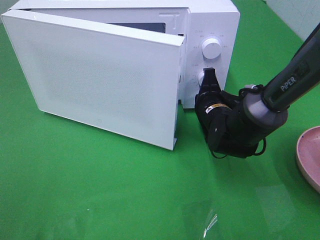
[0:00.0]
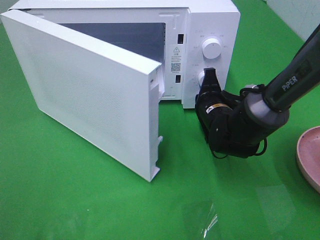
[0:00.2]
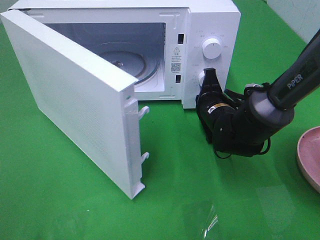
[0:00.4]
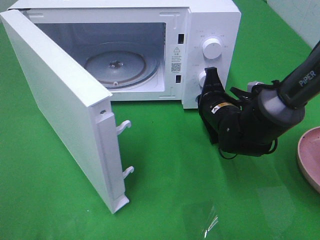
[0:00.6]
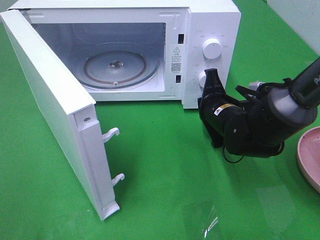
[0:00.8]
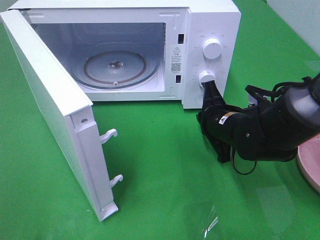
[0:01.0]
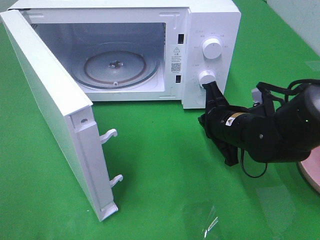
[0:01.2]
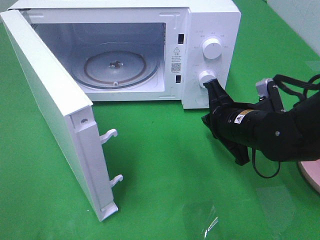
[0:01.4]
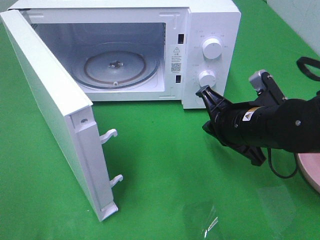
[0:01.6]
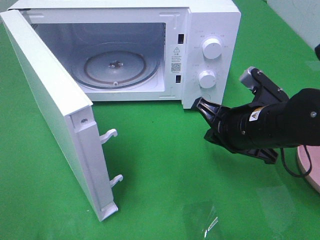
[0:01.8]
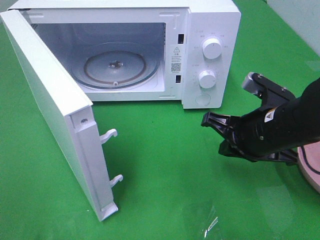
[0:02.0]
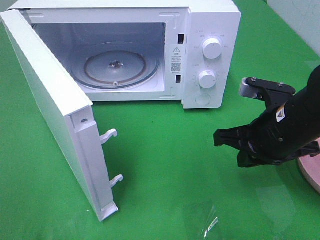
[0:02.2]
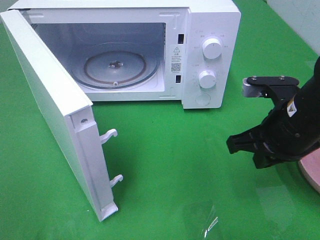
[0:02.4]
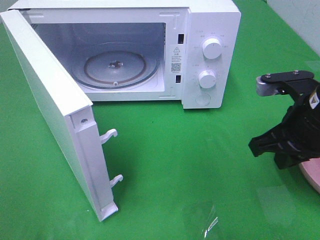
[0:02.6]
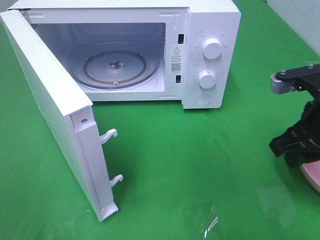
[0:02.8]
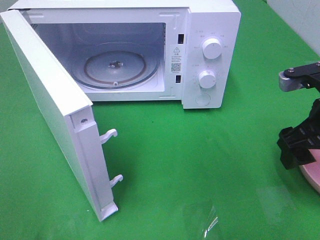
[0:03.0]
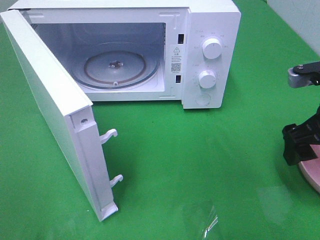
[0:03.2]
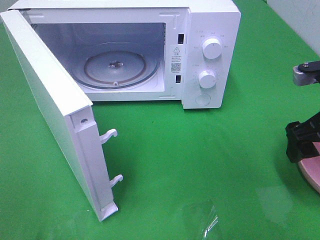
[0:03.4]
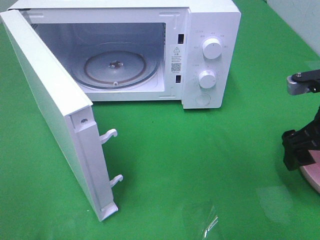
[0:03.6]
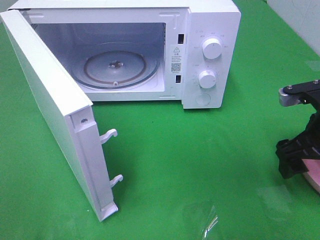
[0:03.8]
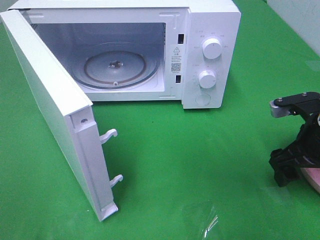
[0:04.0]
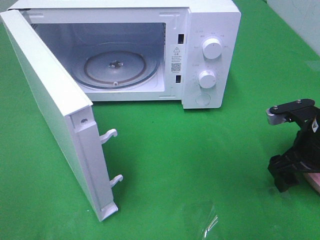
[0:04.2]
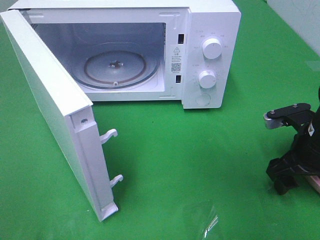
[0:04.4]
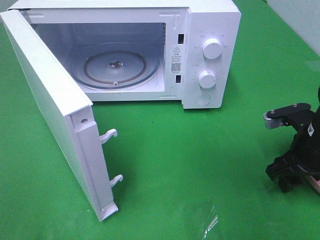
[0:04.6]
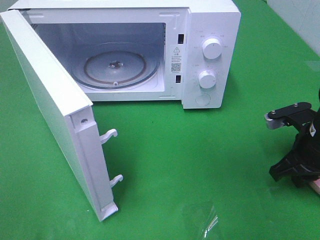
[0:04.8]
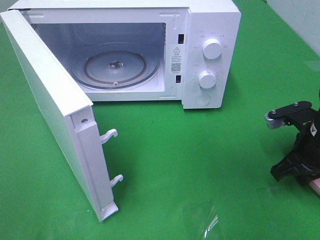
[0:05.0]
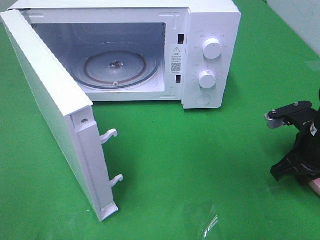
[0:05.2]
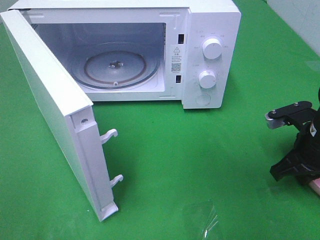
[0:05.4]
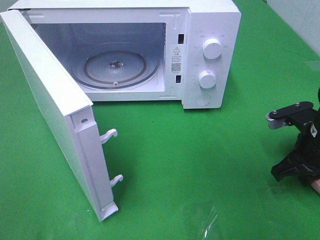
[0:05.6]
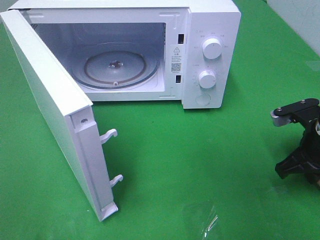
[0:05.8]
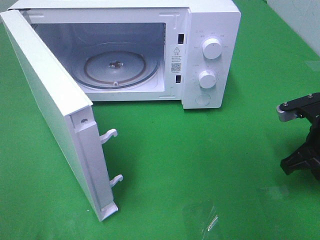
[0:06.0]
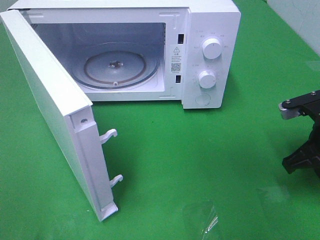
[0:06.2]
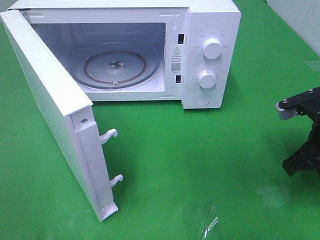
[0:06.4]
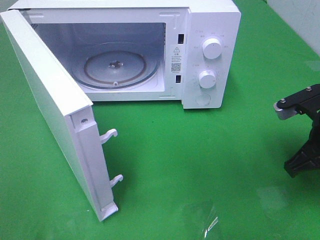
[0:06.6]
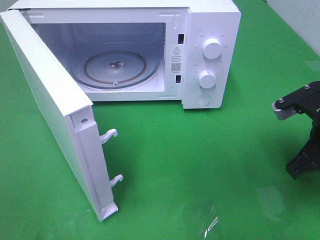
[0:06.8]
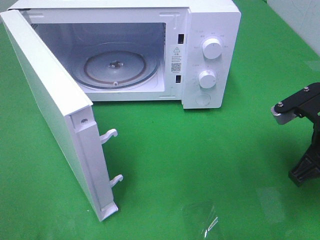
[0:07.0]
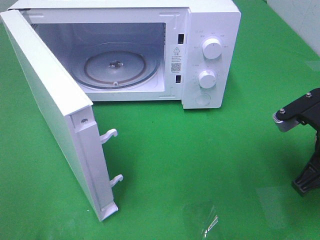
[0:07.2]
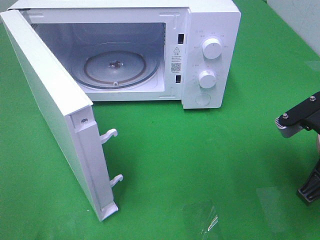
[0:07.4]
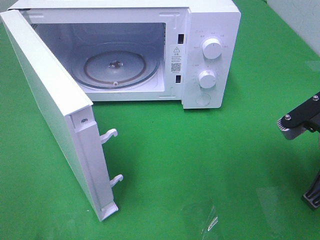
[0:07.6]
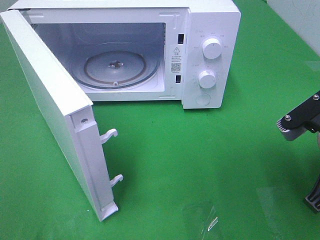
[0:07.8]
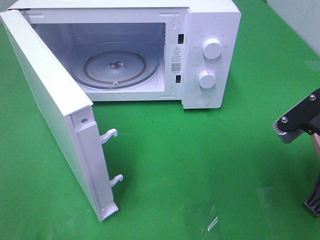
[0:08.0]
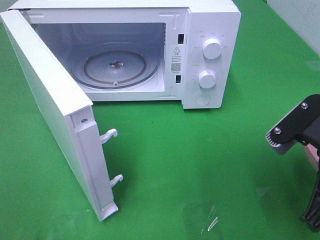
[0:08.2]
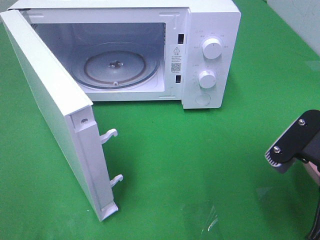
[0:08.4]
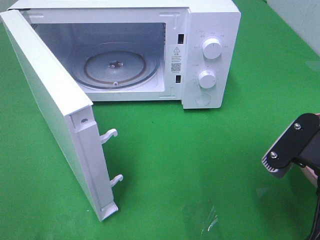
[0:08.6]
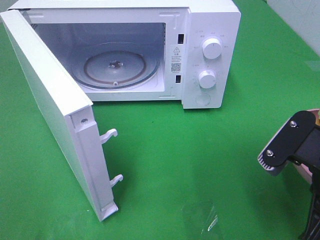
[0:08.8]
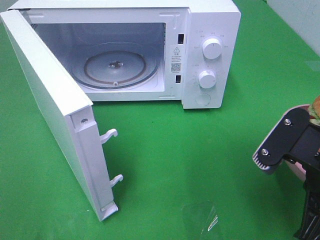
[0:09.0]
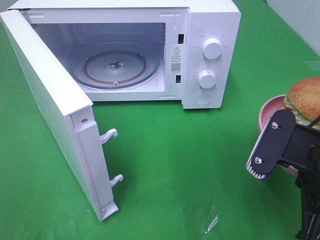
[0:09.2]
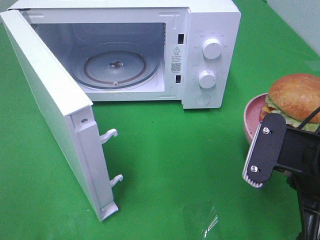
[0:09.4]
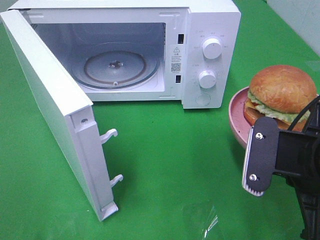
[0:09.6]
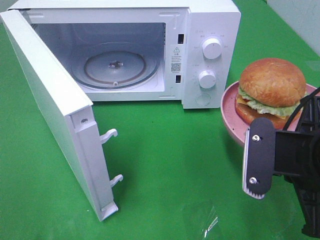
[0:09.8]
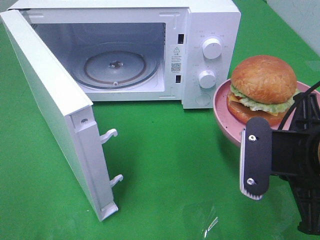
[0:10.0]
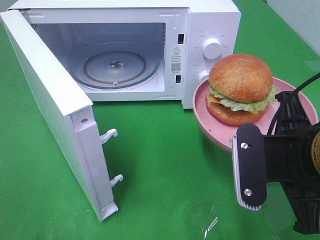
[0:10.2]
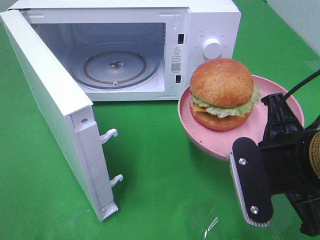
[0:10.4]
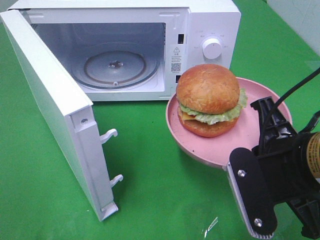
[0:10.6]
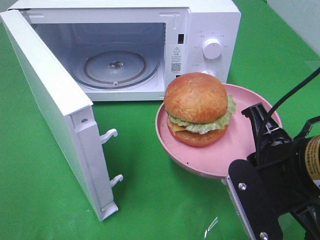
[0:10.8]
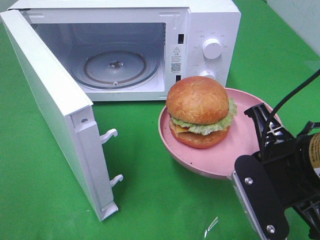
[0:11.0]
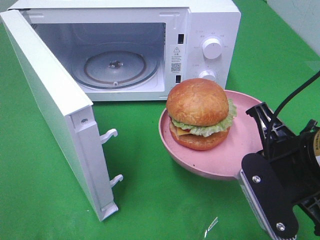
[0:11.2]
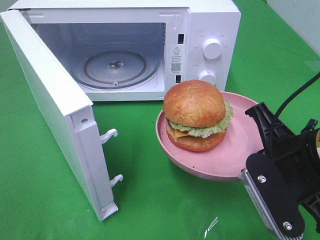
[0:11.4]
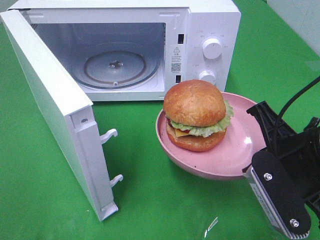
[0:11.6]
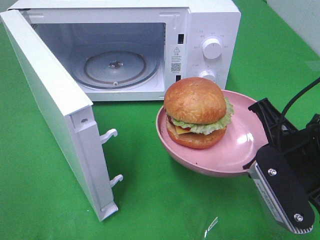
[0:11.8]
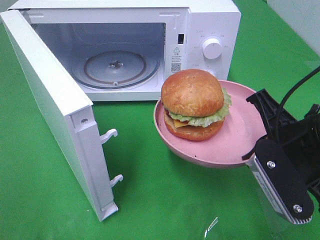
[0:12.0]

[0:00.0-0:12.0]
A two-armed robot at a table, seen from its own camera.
Task of the whole recording: Heat the burger.
Step, 0:01.2 to 0:06.0: Right hand: grab the plate with the hamburger.
0:00.0 to 0:01.6: The right gripper travels backward and upward by roughly 10 cm.
0:01.6 to 0:03.0: The right gripper heads to the right and upward, covering about 10 cm, and opens its fingers.
0:03.0 to 0:04.4: The right gripper shifts about 10 cm downward.
0:04.4 to 0:06.0: The right gripper closes.
0:06.0 to 0:07.6: The right gripper heads backward and upward, covering roughly 10 cm.
0:07.6 to 0:09.0: The right gripper changes place by about 5 cm.
0:10.4 to 0:12.0: The grippers stay close to where they were, moving slightly.

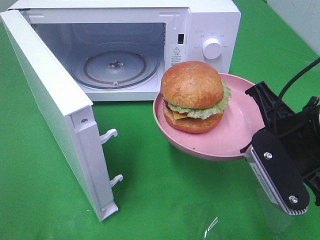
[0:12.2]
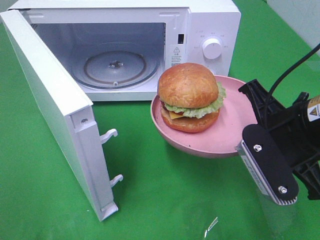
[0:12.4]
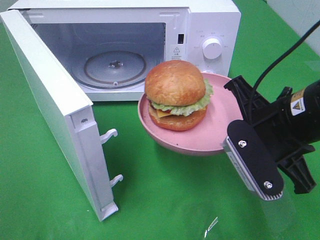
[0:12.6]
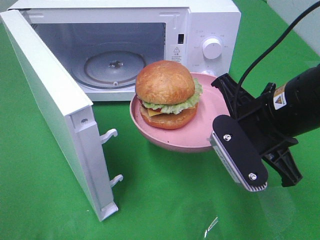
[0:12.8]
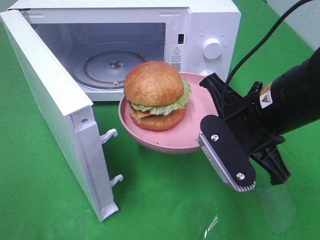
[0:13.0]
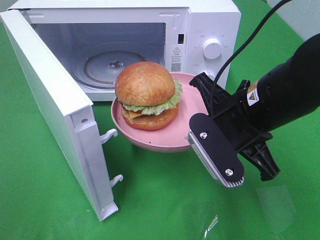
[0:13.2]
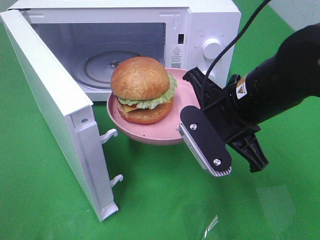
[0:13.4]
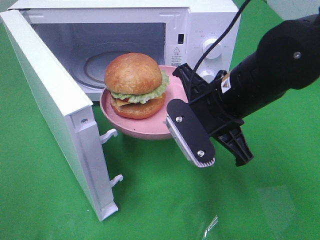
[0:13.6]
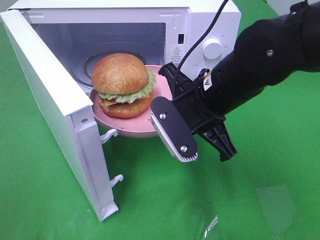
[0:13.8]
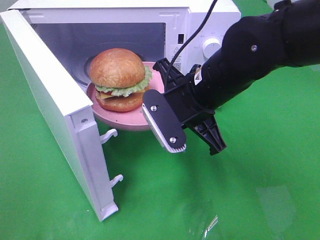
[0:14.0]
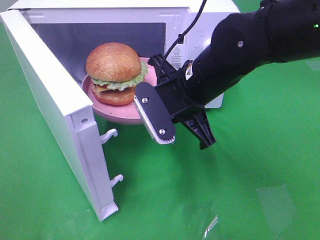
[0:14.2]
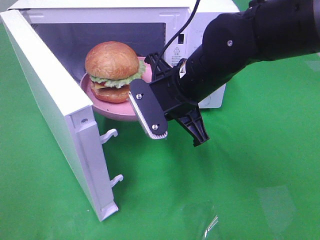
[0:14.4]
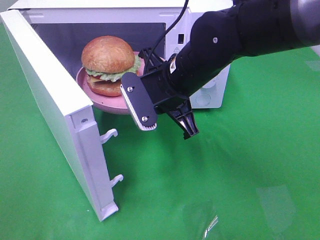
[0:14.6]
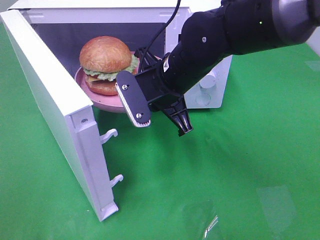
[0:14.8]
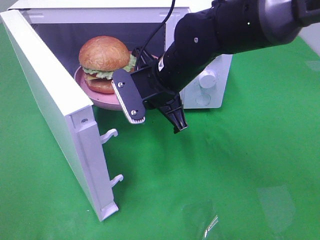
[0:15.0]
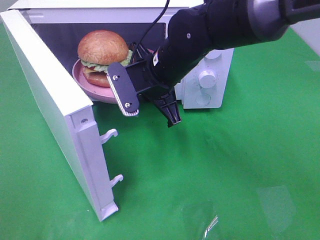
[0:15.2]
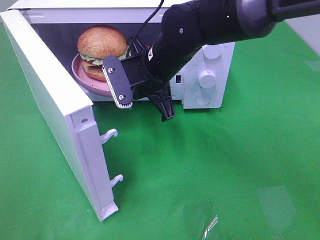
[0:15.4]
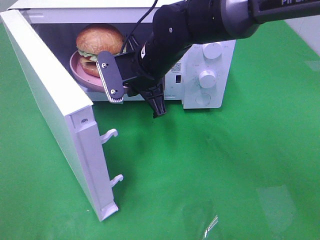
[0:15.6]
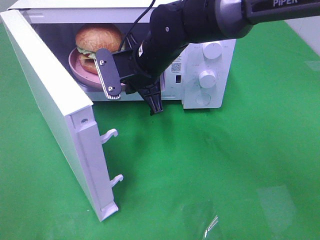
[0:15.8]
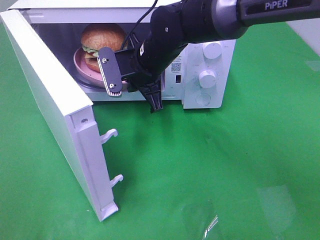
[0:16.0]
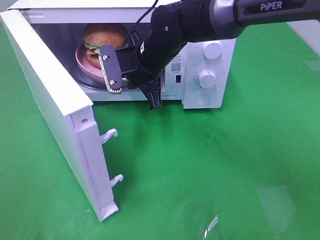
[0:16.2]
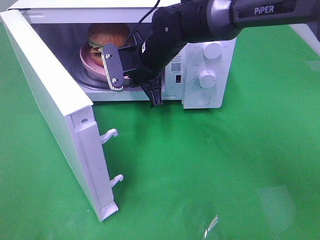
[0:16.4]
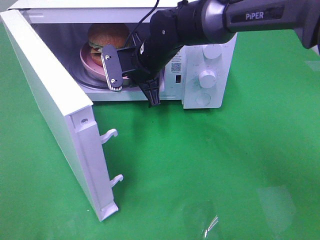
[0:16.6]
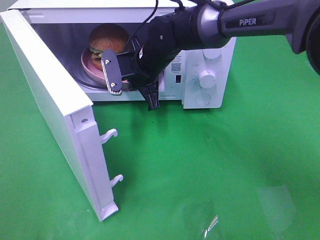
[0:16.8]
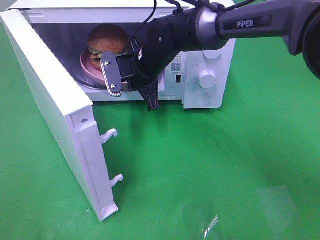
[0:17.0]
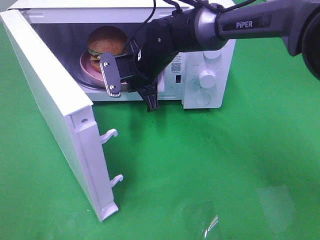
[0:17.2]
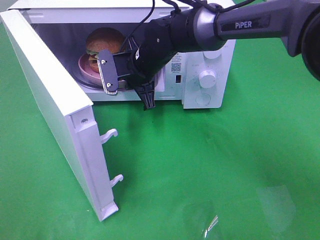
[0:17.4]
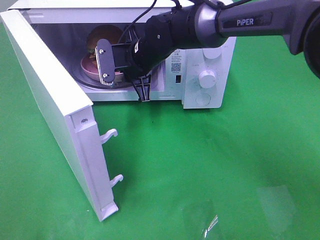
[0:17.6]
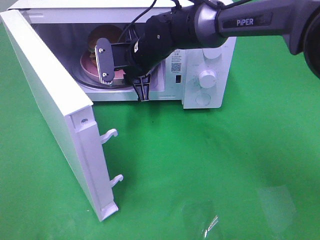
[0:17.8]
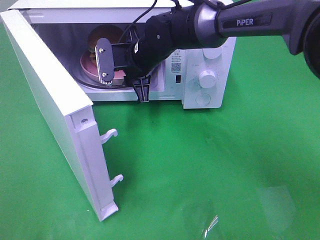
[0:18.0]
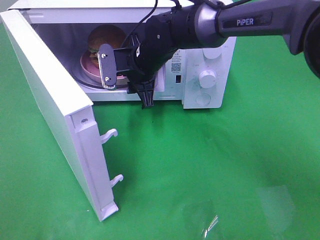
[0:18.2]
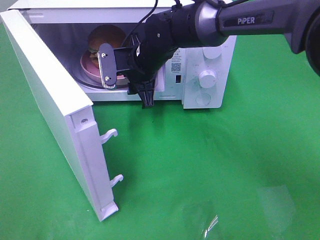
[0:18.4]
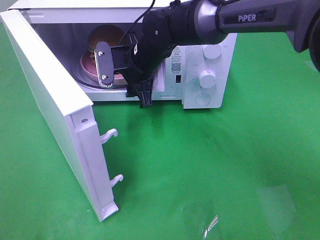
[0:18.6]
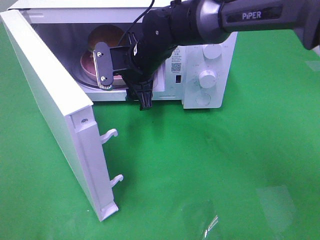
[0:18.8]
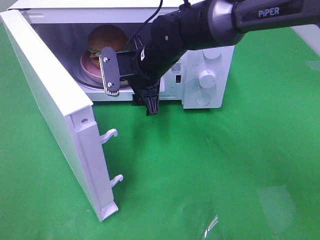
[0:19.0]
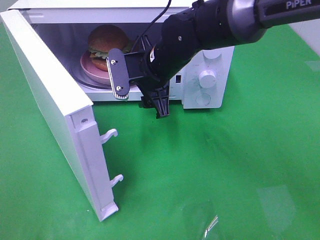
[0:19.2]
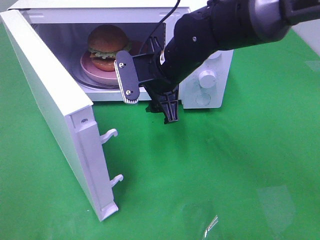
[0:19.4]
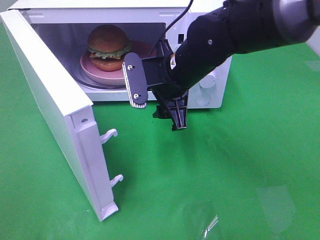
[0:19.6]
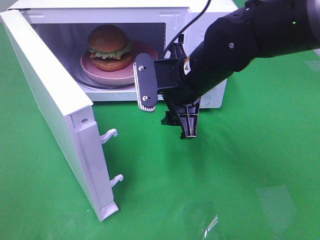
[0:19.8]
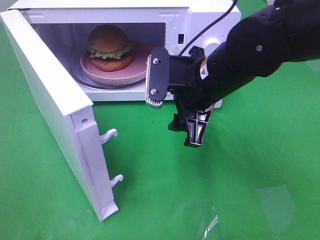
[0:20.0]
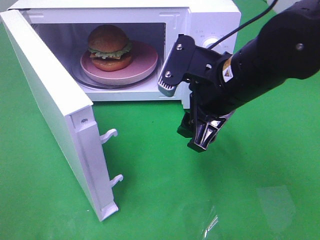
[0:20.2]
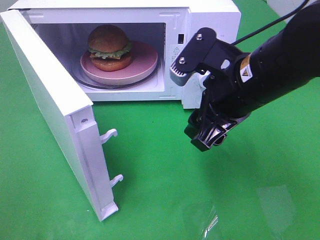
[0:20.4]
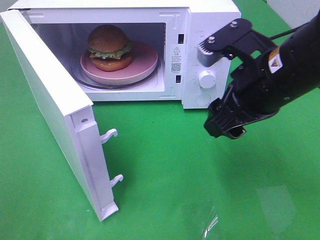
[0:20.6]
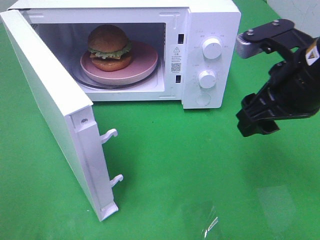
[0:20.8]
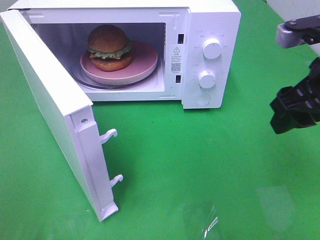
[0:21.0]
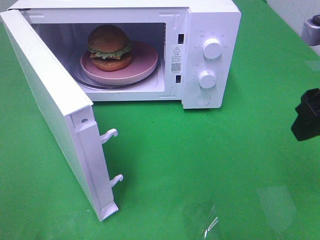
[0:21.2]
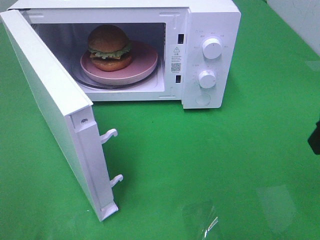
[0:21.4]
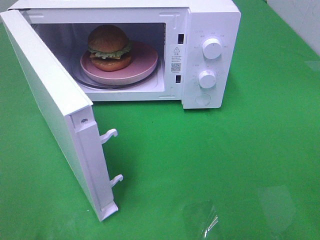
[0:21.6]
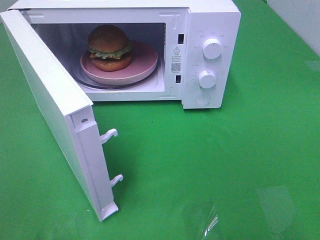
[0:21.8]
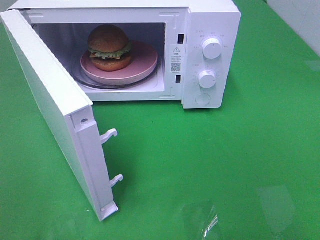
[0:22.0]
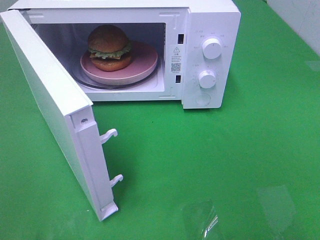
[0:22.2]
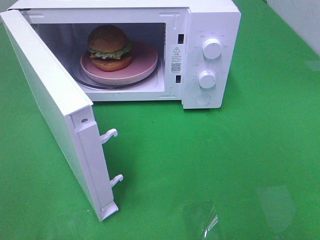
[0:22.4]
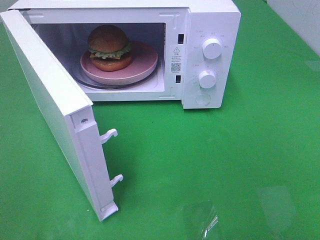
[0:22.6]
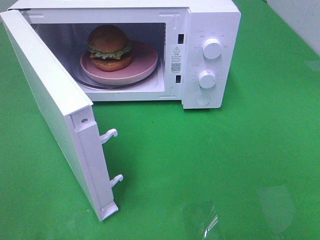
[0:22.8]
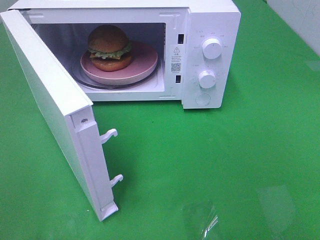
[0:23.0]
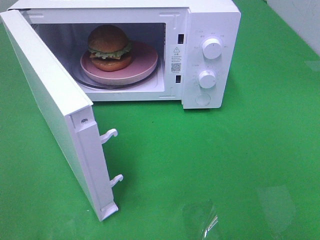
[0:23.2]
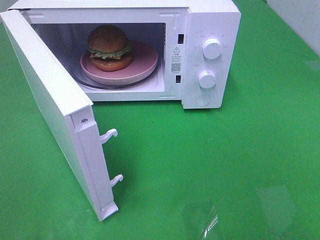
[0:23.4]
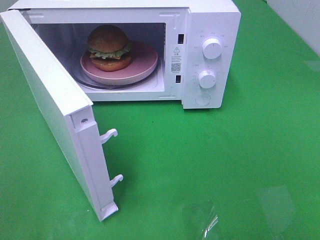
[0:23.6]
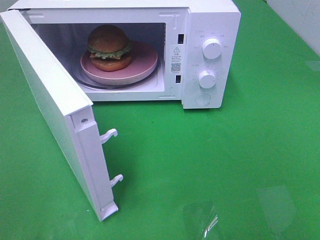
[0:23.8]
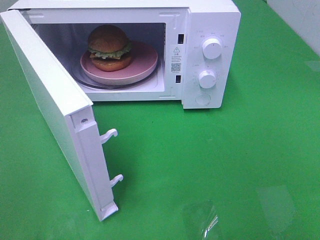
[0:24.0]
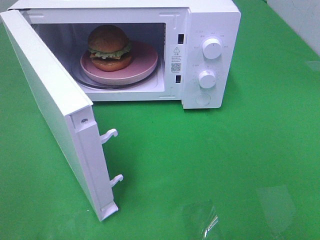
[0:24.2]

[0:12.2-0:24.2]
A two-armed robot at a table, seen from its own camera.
Task of the whole recording: Heat the burger.
Step, 0:12.2 to 0:18.6: Right hand: place the plate in the microwave.
0:12.2 to 0:13.8: The right gripper travels to the left and forward by some 15 cm.
0:13.8 to 0:15.2: The right gripper moves forward and to the left, some 10 cm.
0:15.2 to 0:16.6: The right gripper shifts some 10 cm forward.
0:16.6 to 0:18.2: The right gripper opens up.
0:18.2 to 0:19.8: The right gripper travels backward and to the right by approximately 15 cm.
0:19.8 to 0:21.2: The right gripper shifts roughly 20 cm to the right, backward and upward.
0:21.2 to 0:22.6: The right gripper heads backward, covering about 15 cm.
